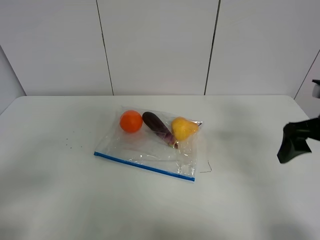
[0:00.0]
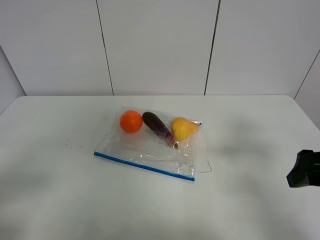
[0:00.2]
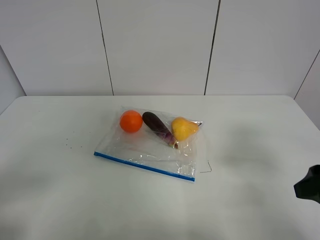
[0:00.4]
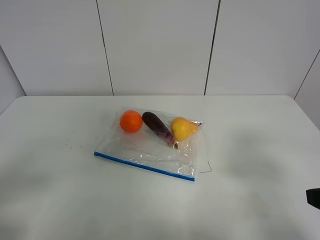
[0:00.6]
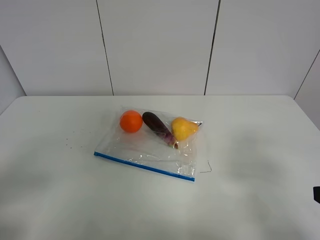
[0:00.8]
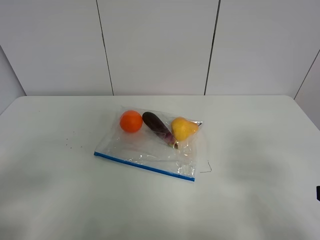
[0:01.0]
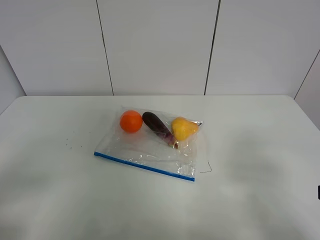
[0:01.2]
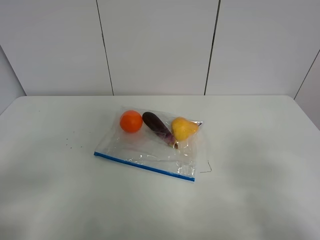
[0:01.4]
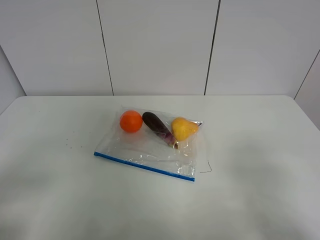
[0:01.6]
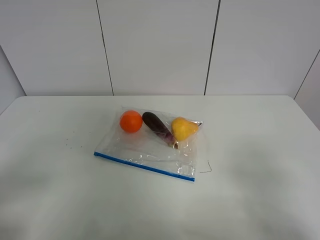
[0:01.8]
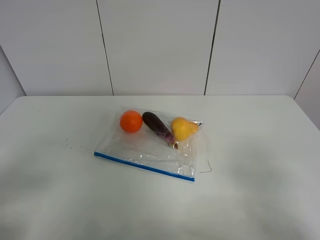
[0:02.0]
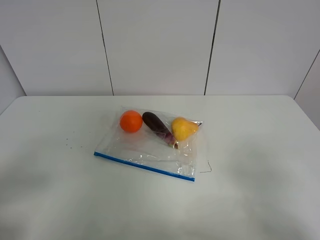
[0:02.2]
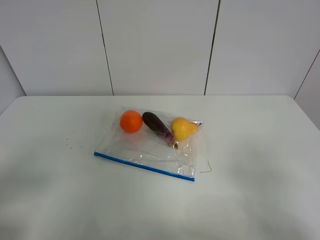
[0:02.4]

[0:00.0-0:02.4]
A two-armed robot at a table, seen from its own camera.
0:00.0 to 0:01.2: The right gripper moves backward, about 15 cm.

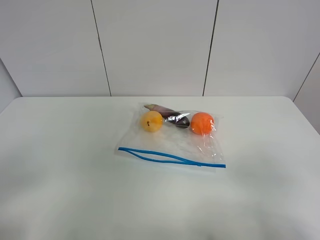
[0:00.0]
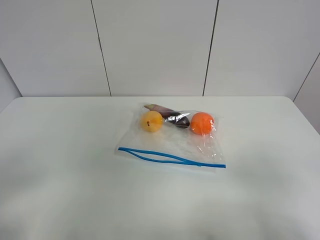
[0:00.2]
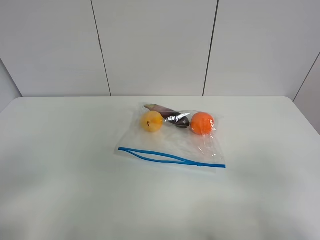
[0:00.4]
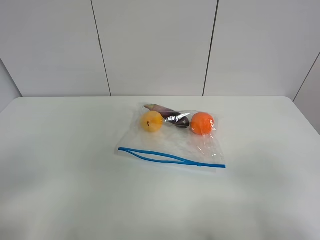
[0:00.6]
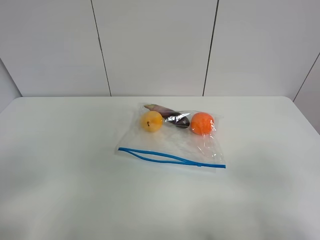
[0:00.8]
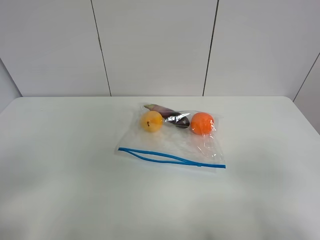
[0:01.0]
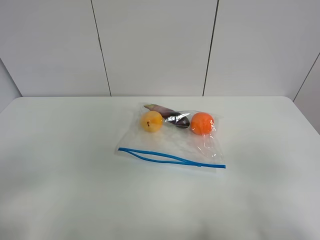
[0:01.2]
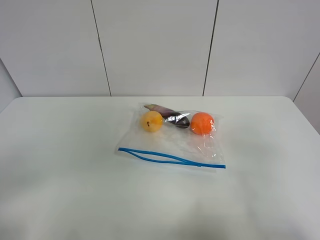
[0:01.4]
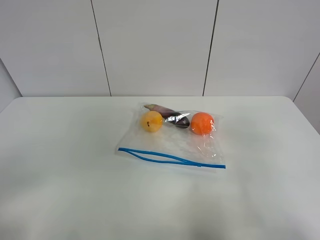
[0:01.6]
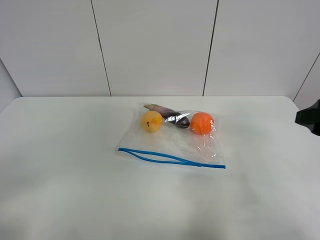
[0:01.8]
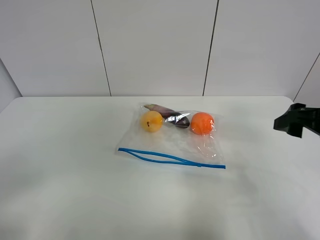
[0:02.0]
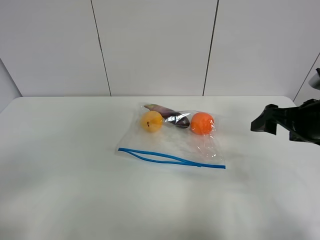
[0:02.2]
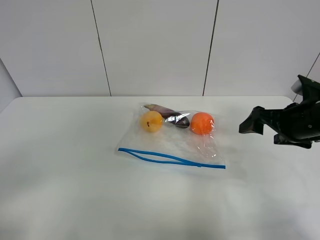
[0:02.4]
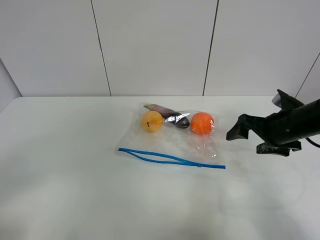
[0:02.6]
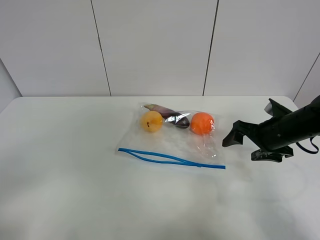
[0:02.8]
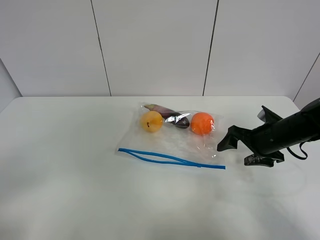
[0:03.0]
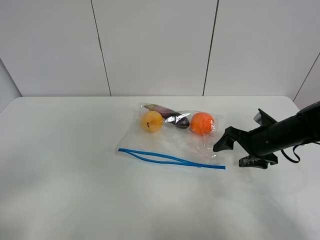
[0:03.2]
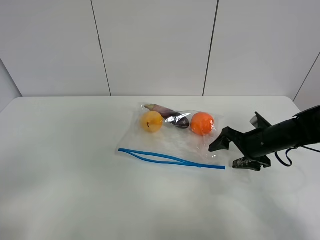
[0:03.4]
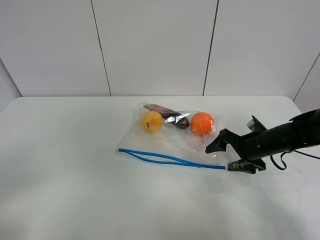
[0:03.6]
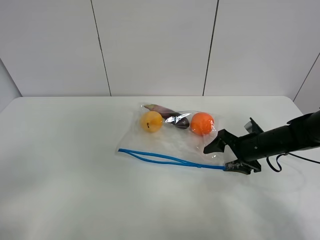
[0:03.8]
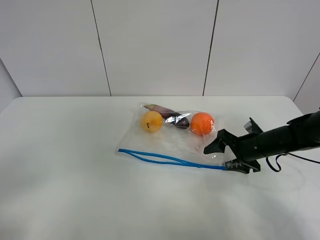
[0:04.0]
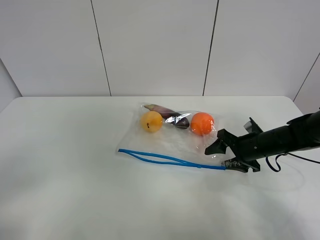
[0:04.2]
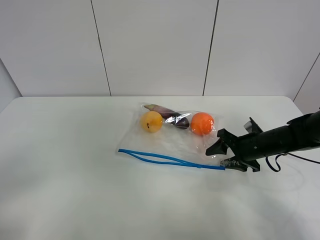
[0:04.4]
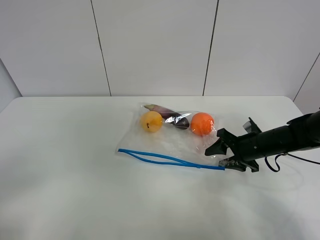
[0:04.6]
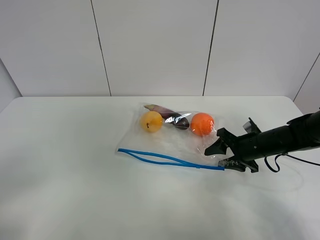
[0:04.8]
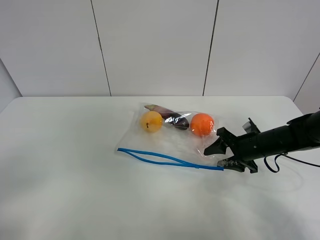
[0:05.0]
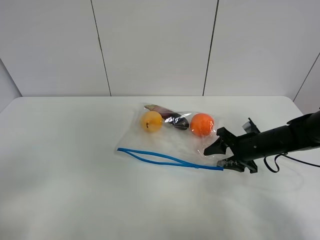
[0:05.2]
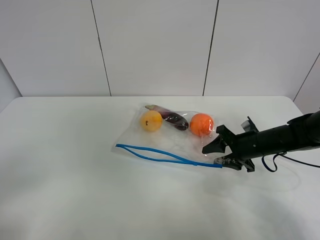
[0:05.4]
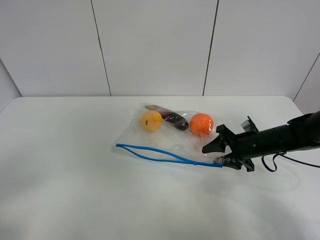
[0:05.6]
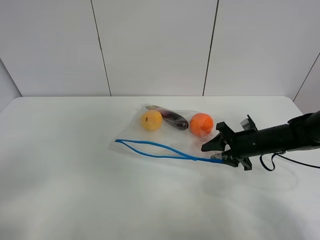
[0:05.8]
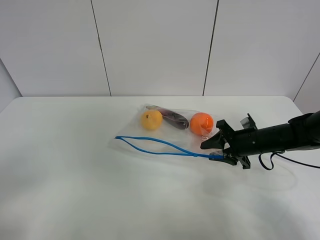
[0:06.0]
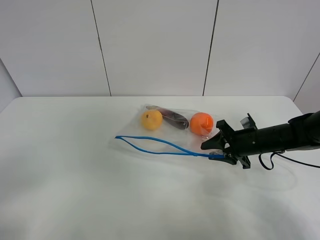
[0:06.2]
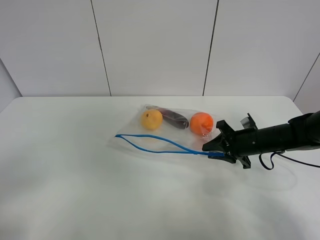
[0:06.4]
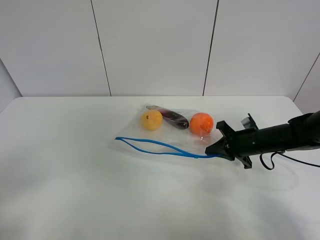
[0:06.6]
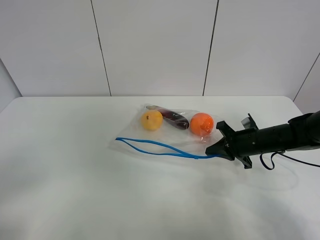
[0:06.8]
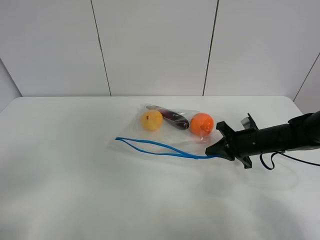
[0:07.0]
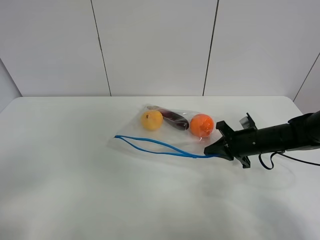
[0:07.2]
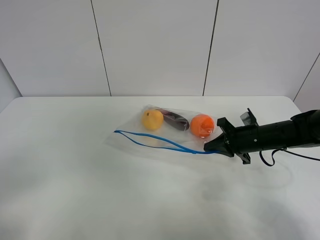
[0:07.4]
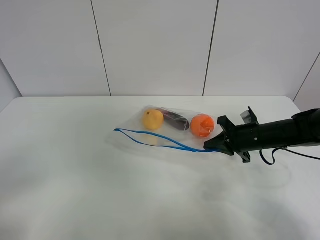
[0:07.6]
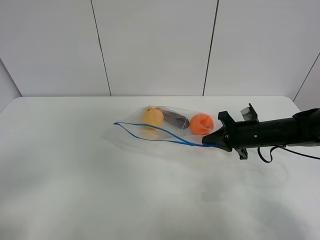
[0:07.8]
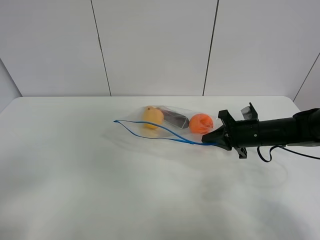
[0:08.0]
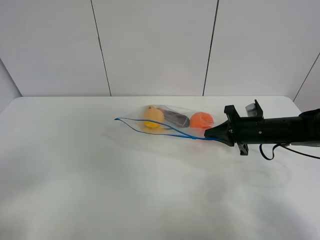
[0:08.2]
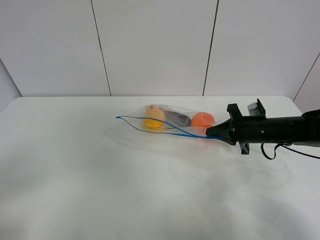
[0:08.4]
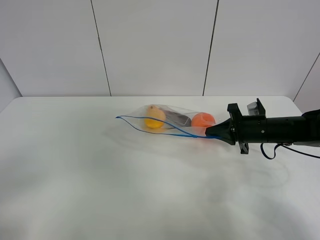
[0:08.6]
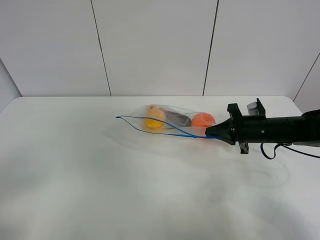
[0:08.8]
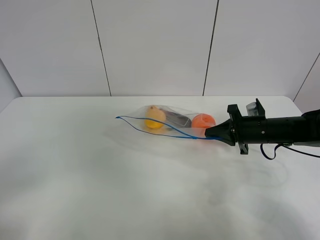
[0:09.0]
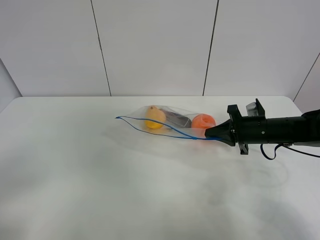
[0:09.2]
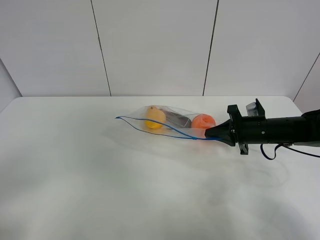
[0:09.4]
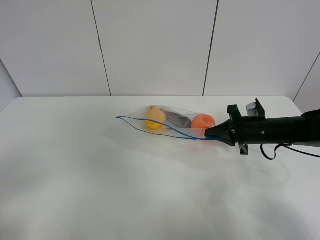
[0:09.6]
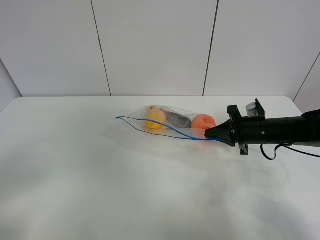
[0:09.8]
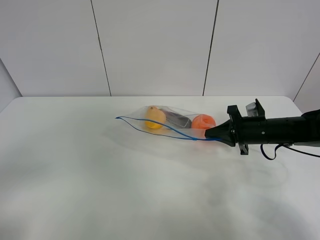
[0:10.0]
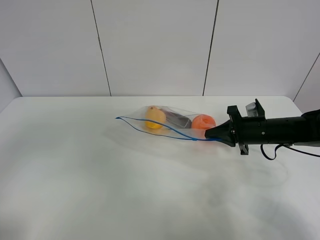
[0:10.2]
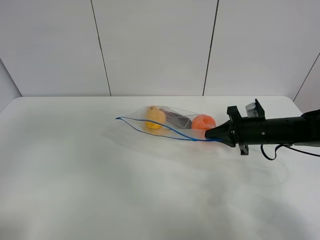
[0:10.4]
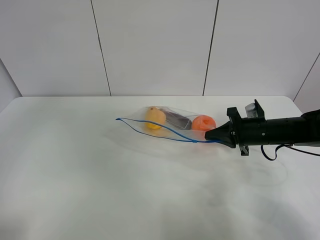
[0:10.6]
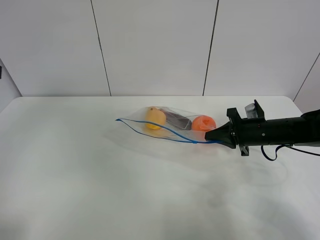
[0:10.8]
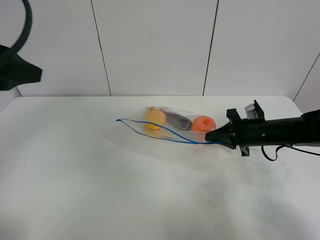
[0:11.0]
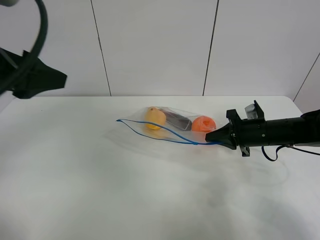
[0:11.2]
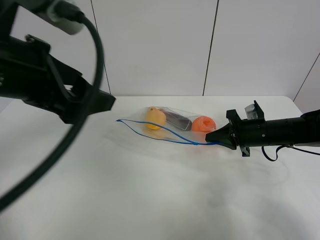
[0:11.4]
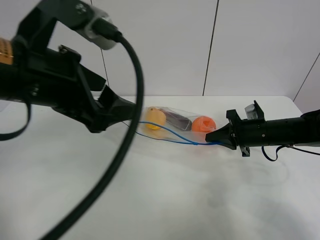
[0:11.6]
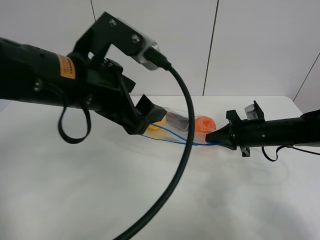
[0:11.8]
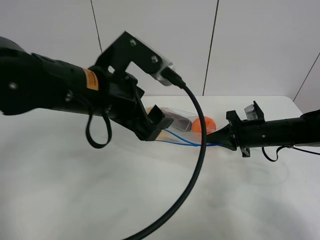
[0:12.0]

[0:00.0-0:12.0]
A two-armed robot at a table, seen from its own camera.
Step, 0:00.0 to 0:06.6: Grasp the fruit bag with right gripper.
Step, 0:06.8 to 0:09.0: Lift the fruit bag with your right gripper.
0:00.0 to 0:01.6: The right gripper travels forward by some 10 cm.
0:01.6 to 0:03.0: The right gripper travels forward and downward by roughly 25 cm.
0:03.0 to 0:04.4: There are only small adjustments of the grippers.
0:04.4 to 0:06.0: There are only small adjustments of the grippers.
0:06.0 to 0:07.6: The right gripper closes its fingers.
0:07.6 to 0:09.0: The grippers move only a little.
0:09.0 to 0:10.4: The left gripper goes about 15 cm forward and upward.
0:10.4 to 0:12.0: The left gripper goes about 30 cm to the right, forward and downward.

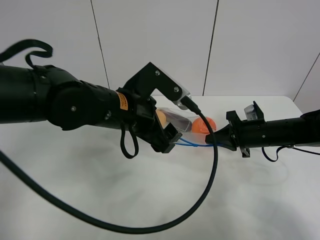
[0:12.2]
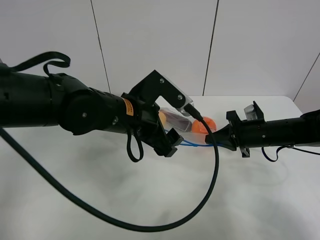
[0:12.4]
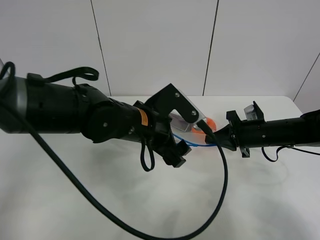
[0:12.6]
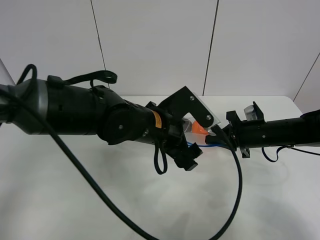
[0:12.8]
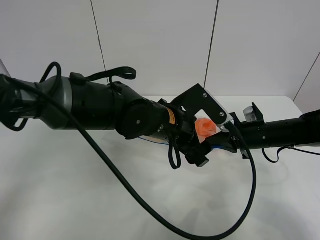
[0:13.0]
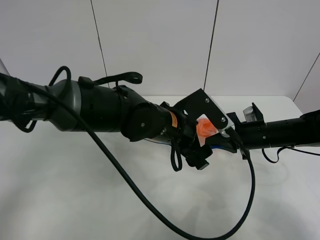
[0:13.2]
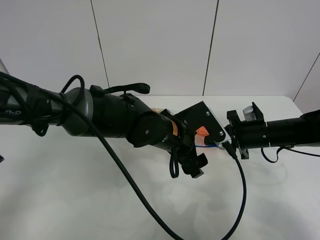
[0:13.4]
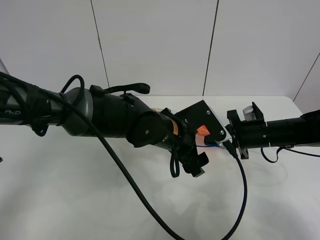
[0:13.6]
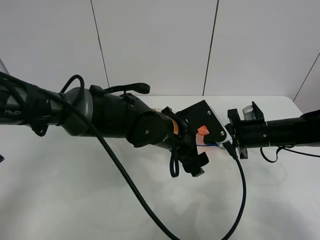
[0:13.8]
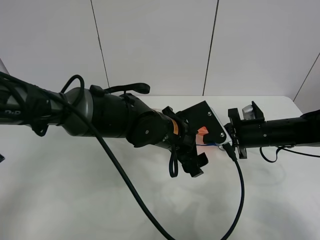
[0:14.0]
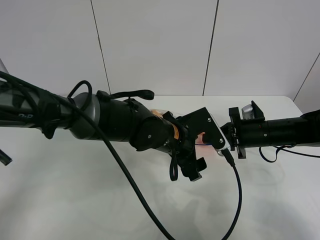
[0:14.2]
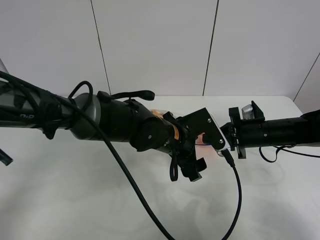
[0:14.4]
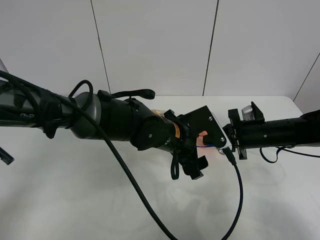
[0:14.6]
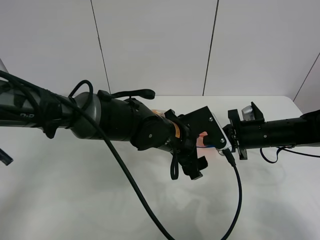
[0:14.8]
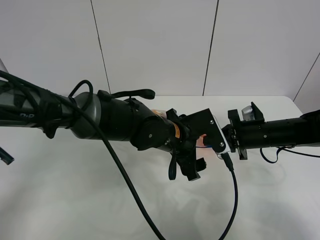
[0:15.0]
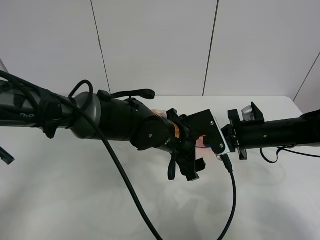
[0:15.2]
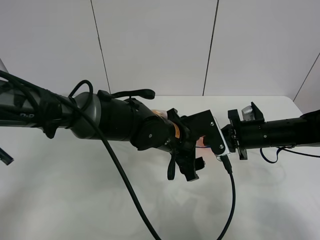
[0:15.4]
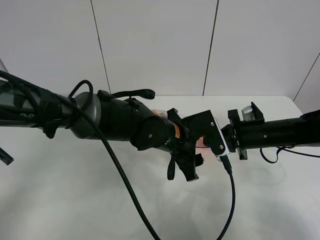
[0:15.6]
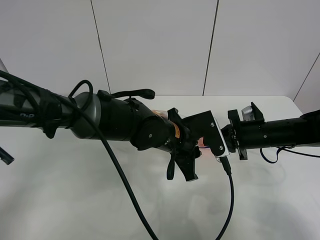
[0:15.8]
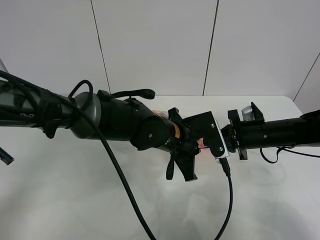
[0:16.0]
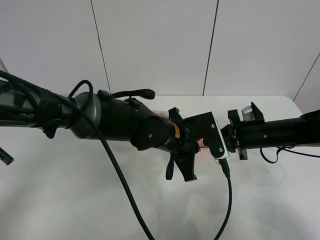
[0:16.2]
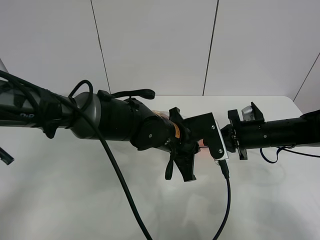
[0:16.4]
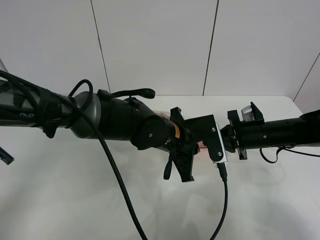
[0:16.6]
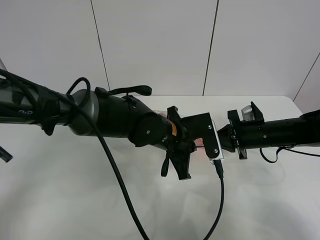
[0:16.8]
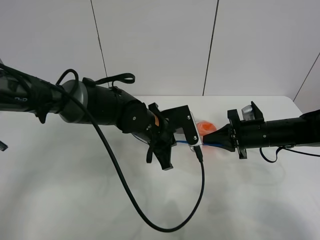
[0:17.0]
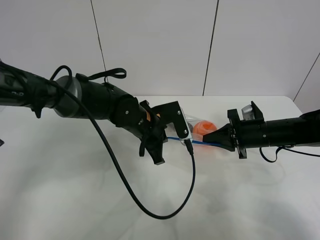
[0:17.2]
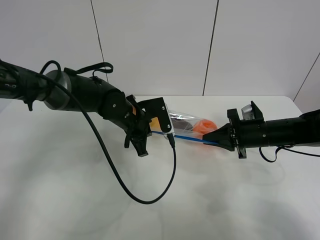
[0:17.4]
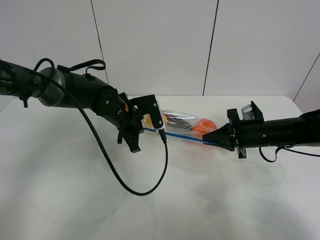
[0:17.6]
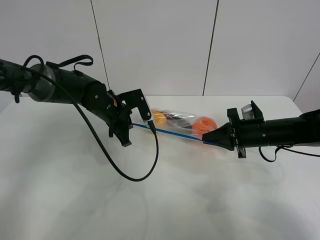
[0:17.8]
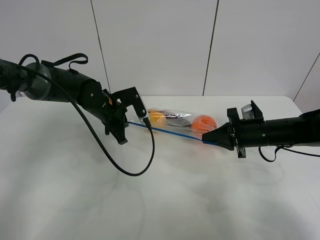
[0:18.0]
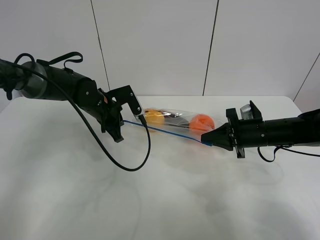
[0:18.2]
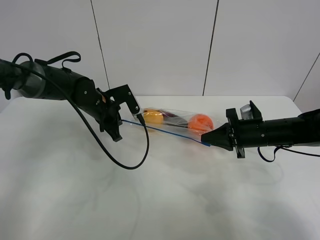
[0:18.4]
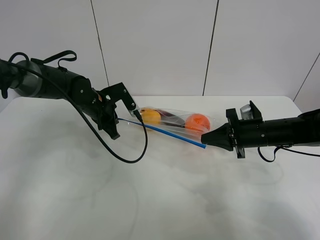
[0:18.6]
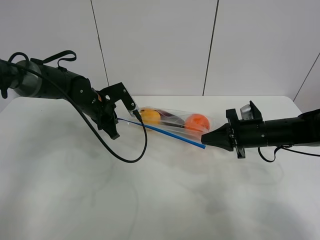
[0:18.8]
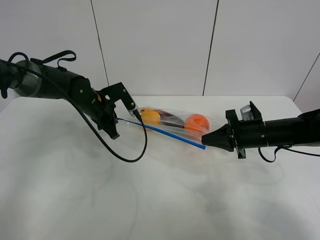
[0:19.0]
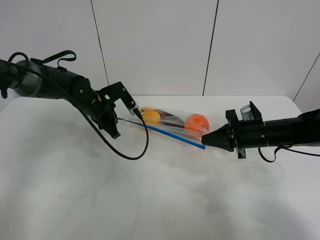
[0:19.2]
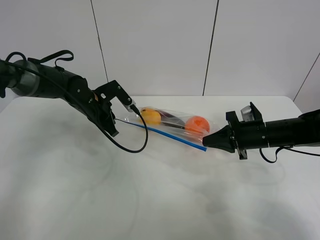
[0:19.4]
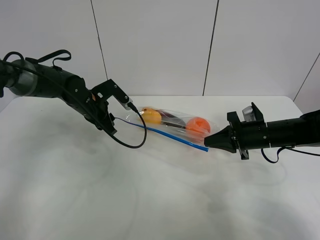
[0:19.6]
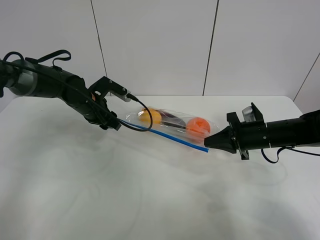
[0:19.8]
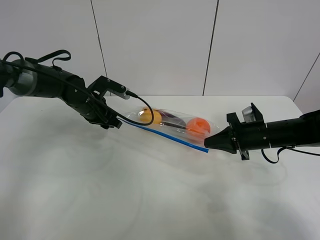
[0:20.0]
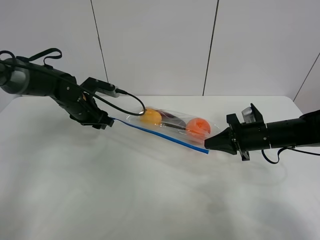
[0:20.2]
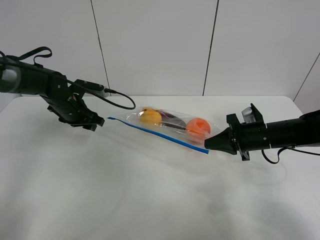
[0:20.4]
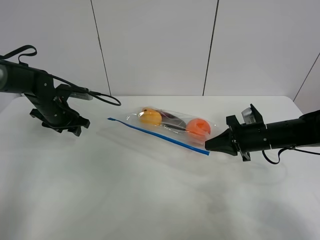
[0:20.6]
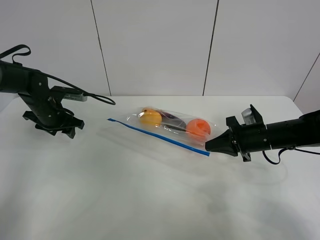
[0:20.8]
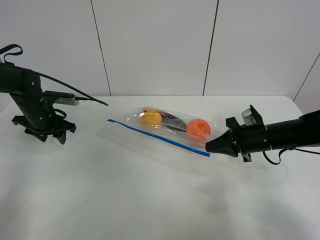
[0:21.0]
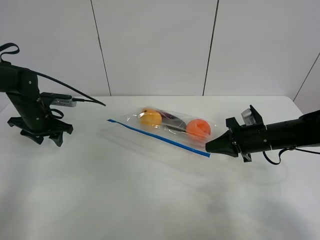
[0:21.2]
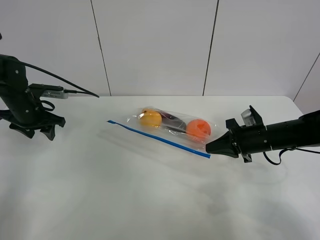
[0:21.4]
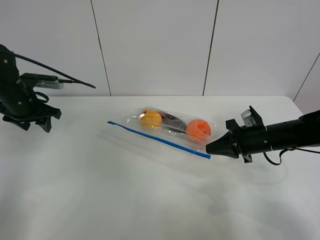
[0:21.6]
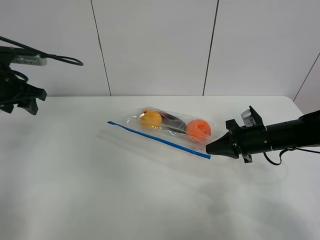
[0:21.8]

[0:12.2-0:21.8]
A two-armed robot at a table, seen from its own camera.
Step, 0:12.2 to 0:19.6: Pull the fruit bag with left gripper.
0:12.2 to 0:13.8: The left gripper goes about 10 cm to the right and downward.
0:13.8 to 0:15.4: The grippers stay close to where they were, moving slightly.
0:15.4 to 0:17.0: The left gripper ends up roughly 5 cm from where it was, and closes its fingers.
0:17.0 to 0:18.6: The left gripper heads to the left and forward, covering roughly 15 cm.
0:18.6 to 0:20.2: The left gripper opens its fingers.
0:20.2 to 0:21.8: The left gripper travels upward, to the left and backward by approximately 20 cm.
